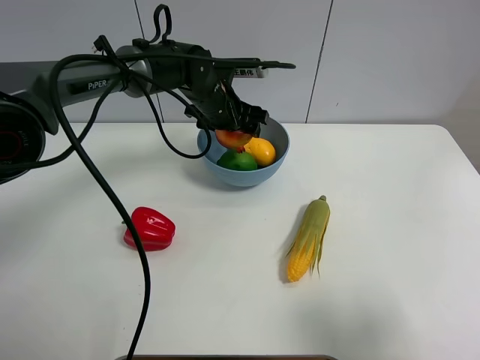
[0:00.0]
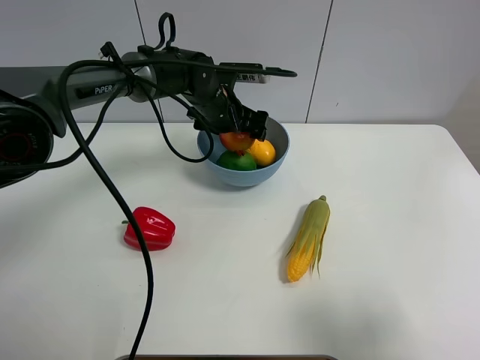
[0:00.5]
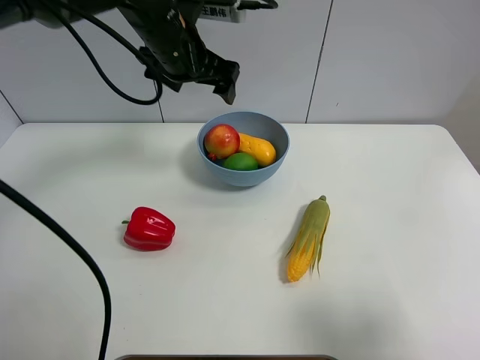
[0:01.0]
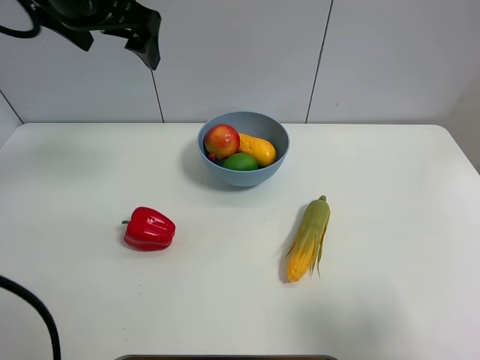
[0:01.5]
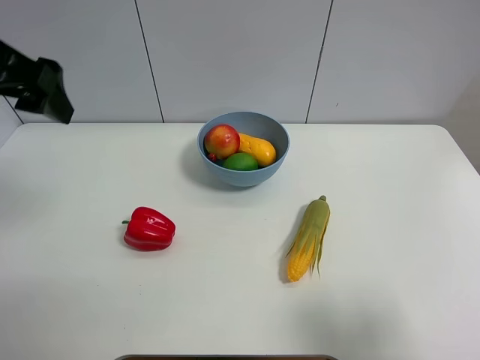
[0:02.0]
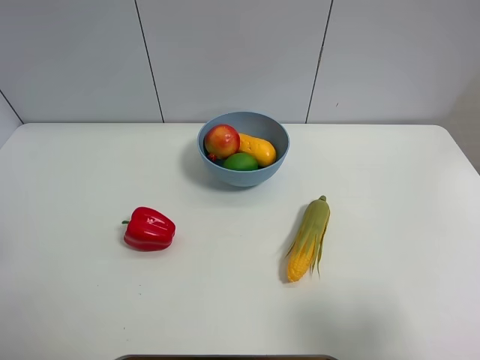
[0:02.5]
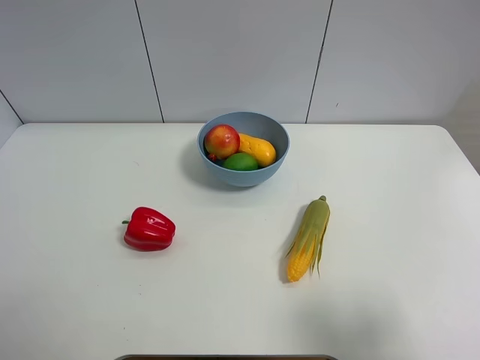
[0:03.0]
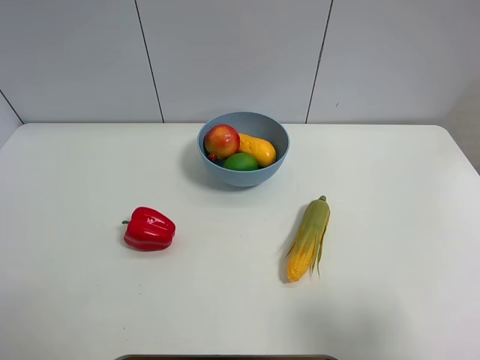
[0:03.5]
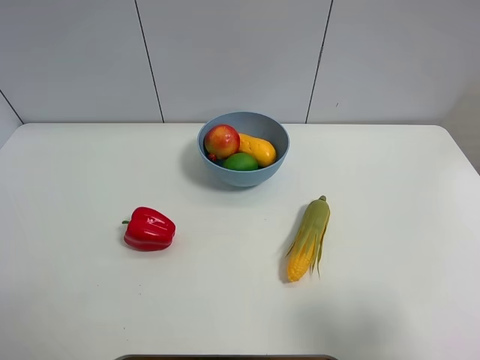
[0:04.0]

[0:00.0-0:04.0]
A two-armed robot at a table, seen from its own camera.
Task of the whole recording: Put the three fruits on the table into a bowl.
0:00.0 to 0:02.0: The left gripper travels backward, upward and to the left by about 35 cm, and opens.
0:02.0 to 0:04.0: The left gripper travels backward, downward and to the left by roughly 25 cm.
